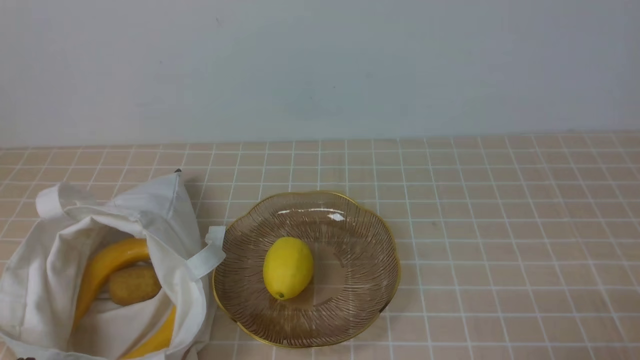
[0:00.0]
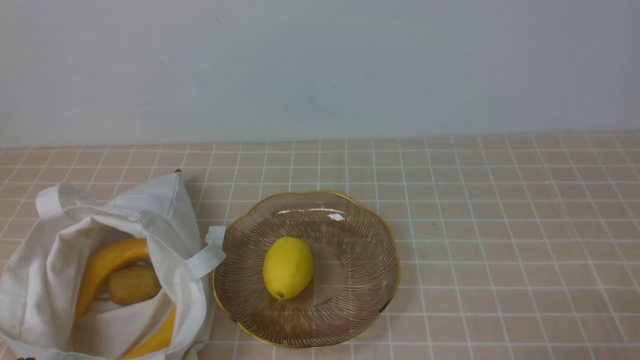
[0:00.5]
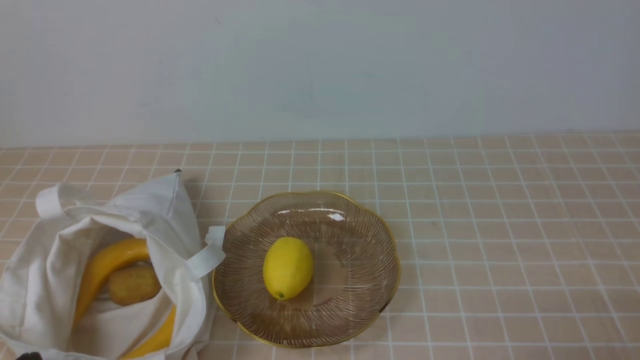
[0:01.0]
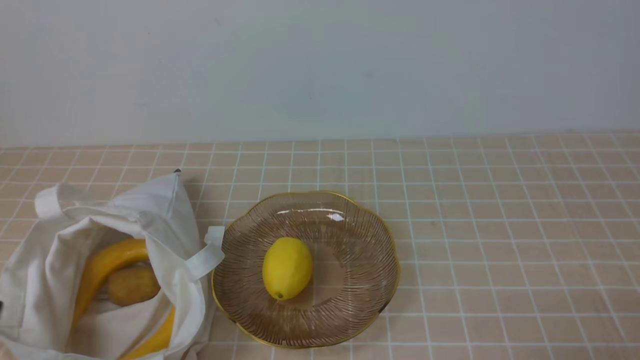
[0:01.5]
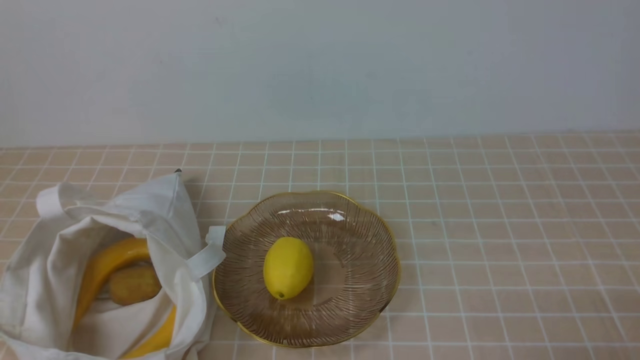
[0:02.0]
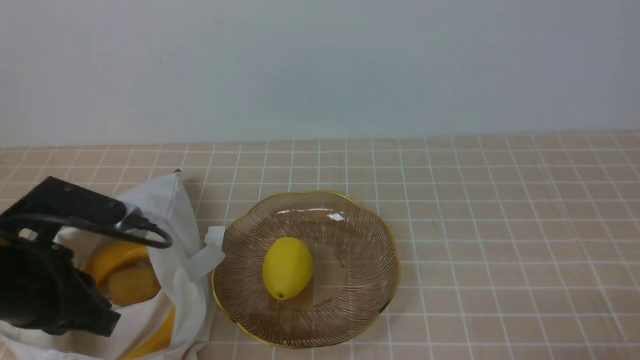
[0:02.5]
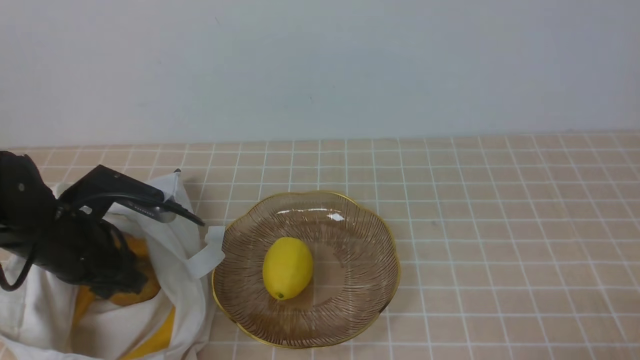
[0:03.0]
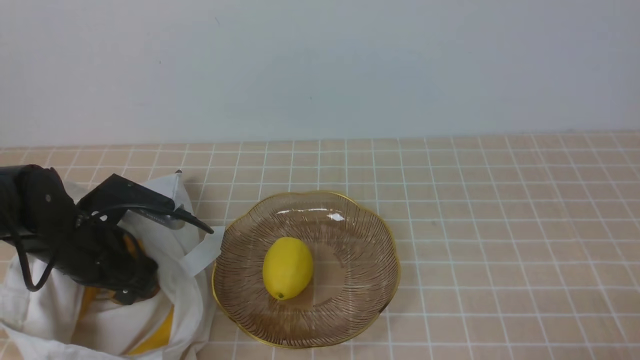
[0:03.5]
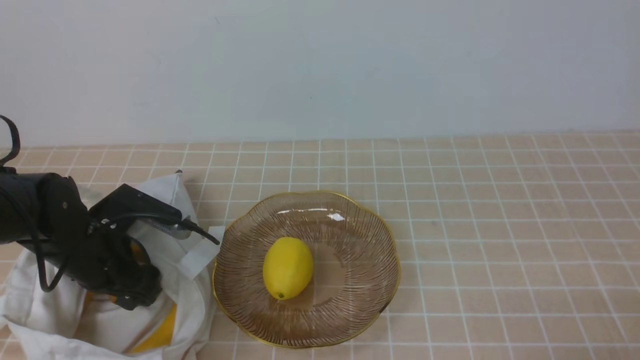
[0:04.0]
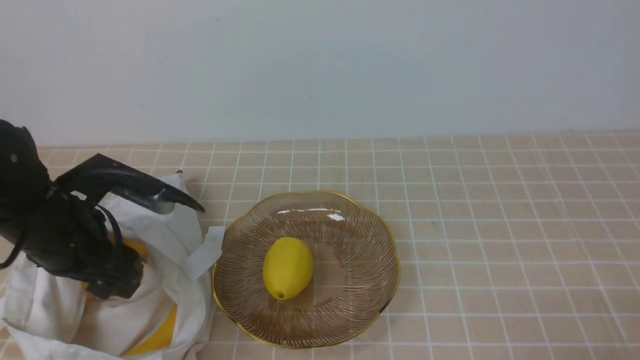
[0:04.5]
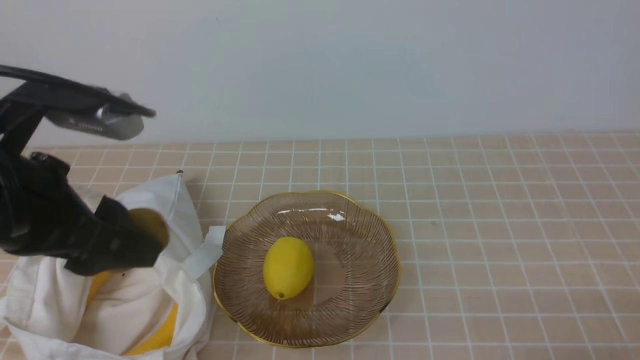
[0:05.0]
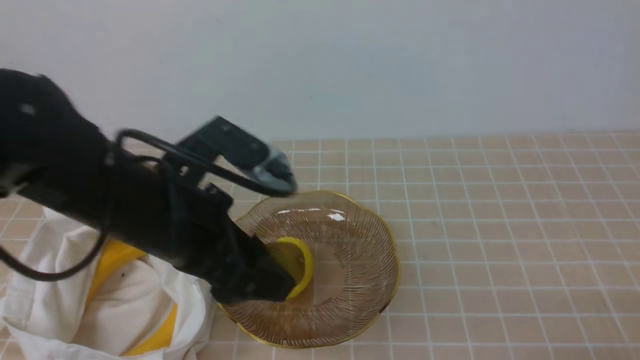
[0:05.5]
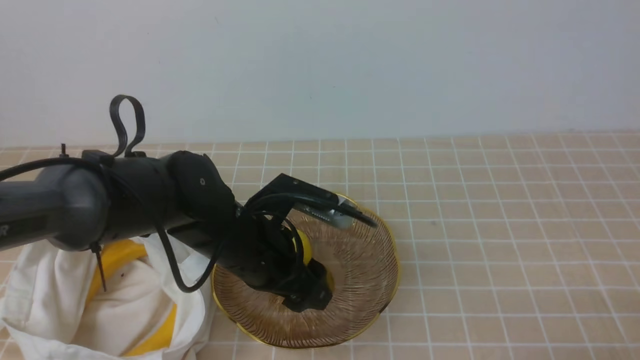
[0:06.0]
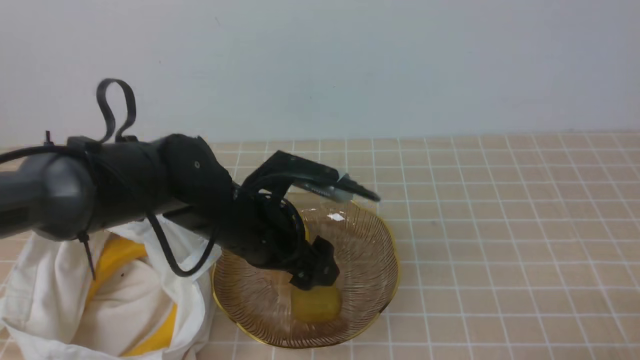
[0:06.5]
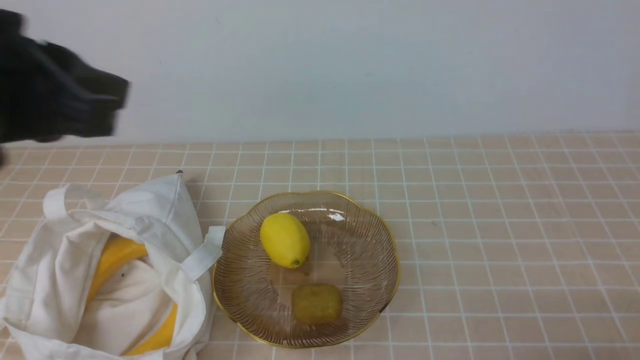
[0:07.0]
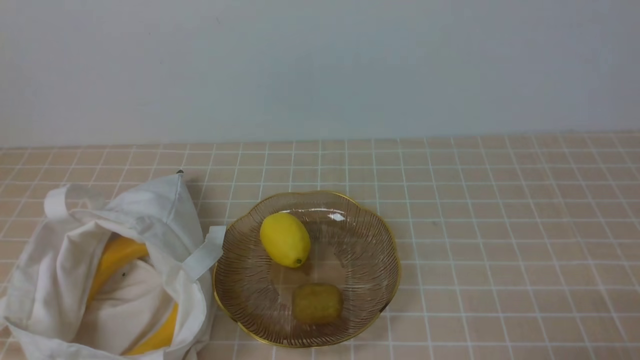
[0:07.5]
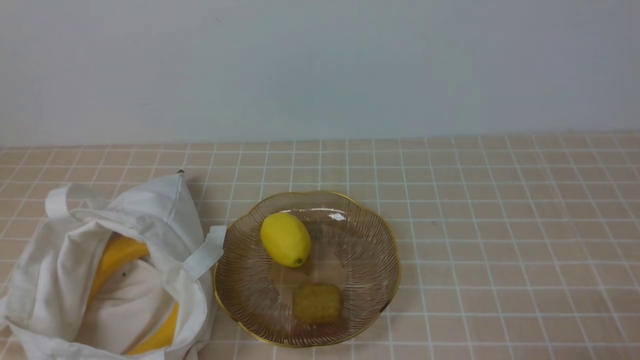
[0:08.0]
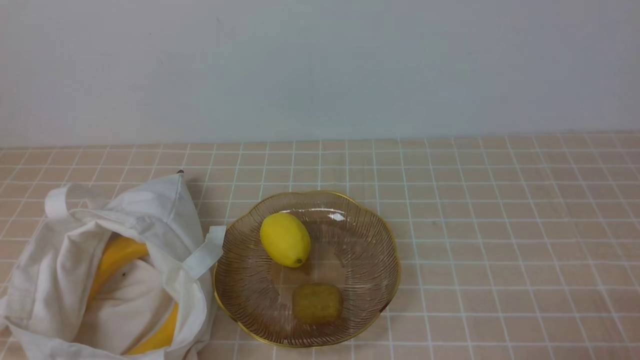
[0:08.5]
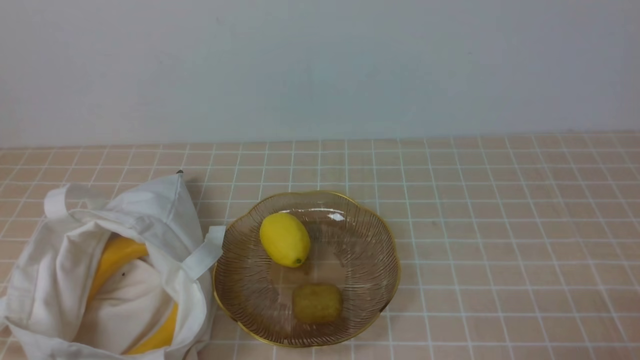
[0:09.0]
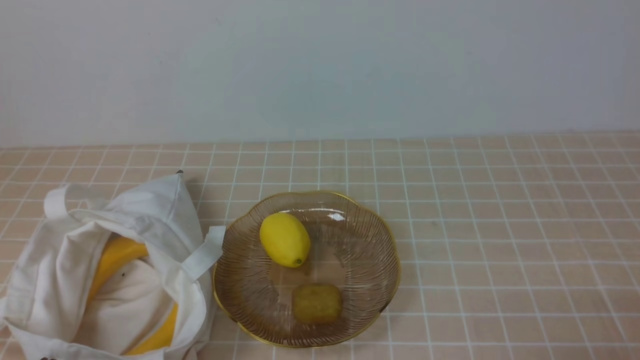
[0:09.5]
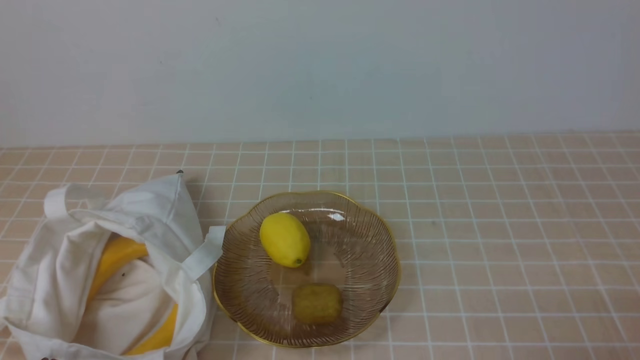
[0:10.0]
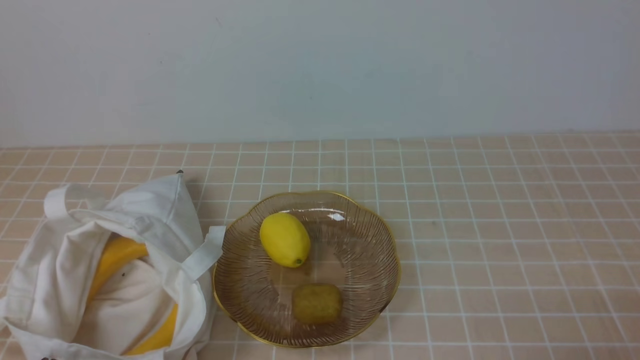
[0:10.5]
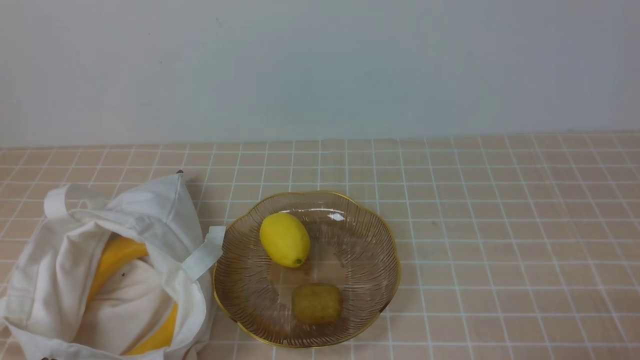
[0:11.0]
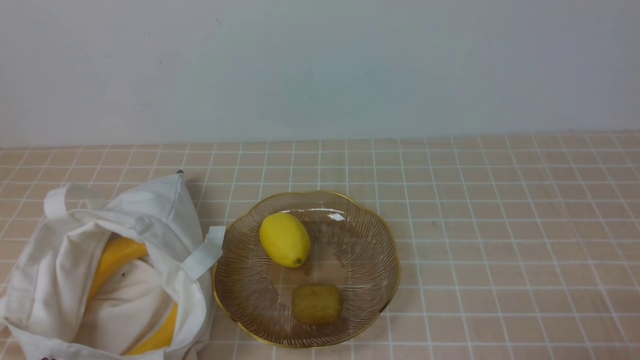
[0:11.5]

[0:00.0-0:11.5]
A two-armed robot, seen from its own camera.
Step, 0:00.0 to 0:04.0: use the left arm to grab a kiwi from the bag.
Step, 0:04.5 to 0:06.0: use the left arm to put the kiwi into the empty plate on the right.
0:02.0 to 0:04.0: The left gripper heads forward and downward, covering some 25 cm, and opens its fingers.
0:04.0 to 0:06.0: The left gripper is displaced to the right by approximately 15 cm.
0:06.0 to 0:07.5: The left gripper shifts about 35 cm backward, upward and to the left, and closes its fingers.
0:09.5 to 0:11.5: The two grippers keep their place.
